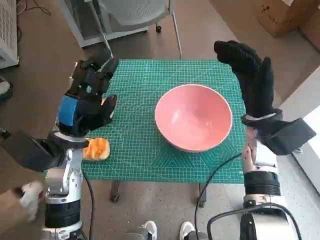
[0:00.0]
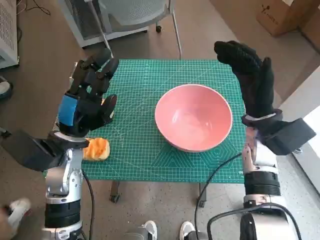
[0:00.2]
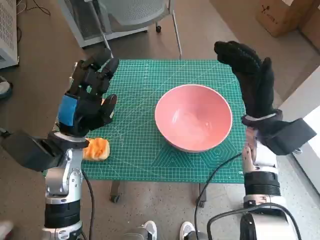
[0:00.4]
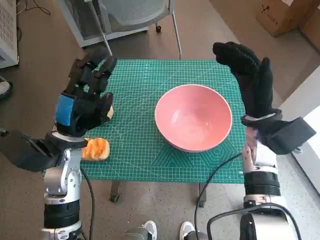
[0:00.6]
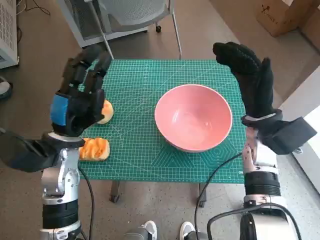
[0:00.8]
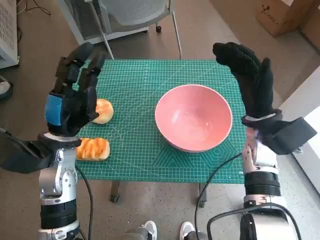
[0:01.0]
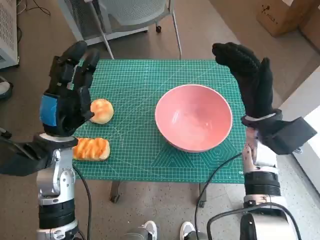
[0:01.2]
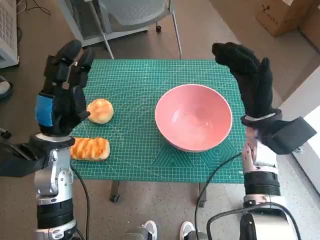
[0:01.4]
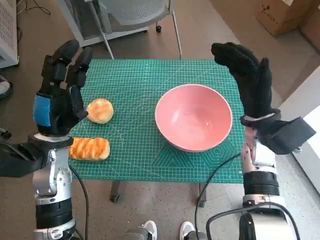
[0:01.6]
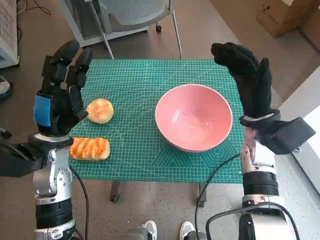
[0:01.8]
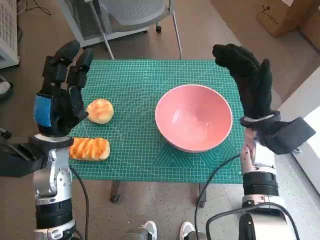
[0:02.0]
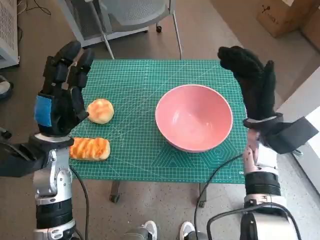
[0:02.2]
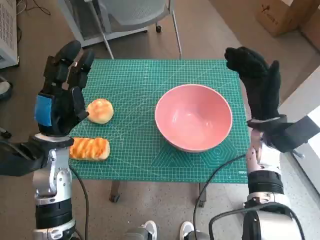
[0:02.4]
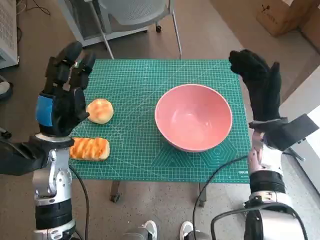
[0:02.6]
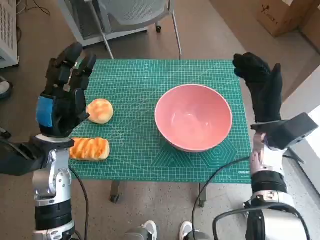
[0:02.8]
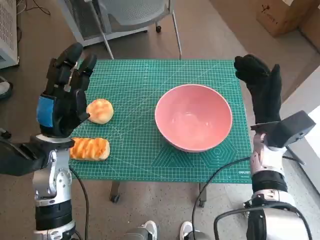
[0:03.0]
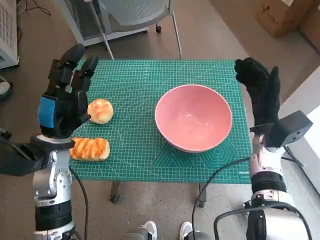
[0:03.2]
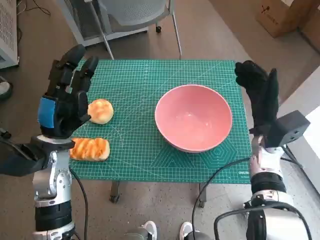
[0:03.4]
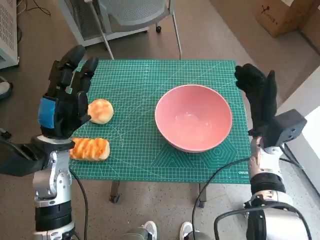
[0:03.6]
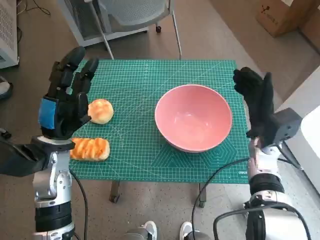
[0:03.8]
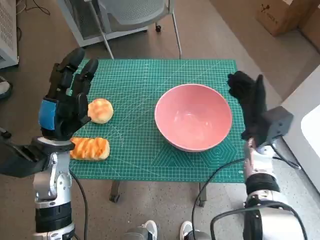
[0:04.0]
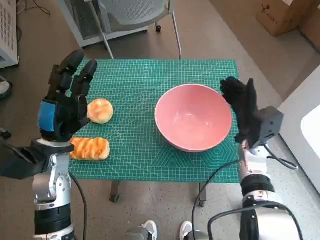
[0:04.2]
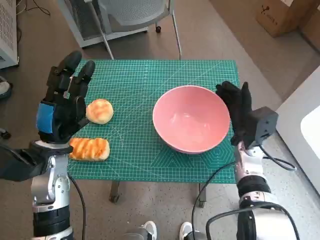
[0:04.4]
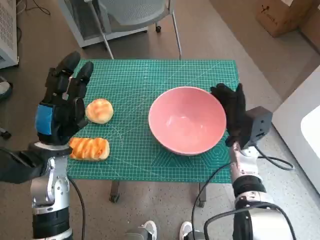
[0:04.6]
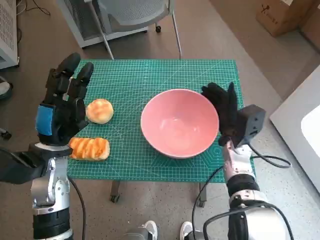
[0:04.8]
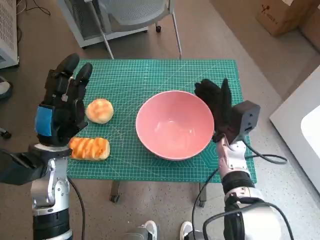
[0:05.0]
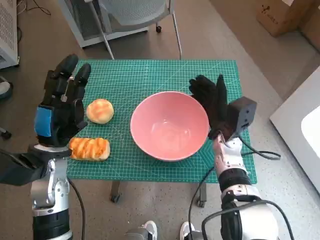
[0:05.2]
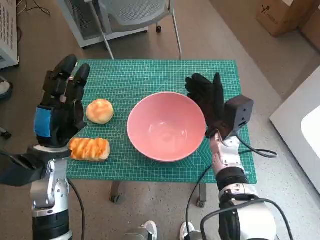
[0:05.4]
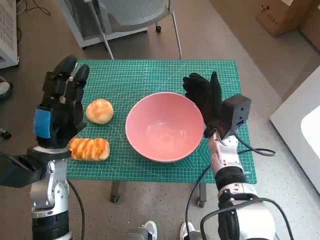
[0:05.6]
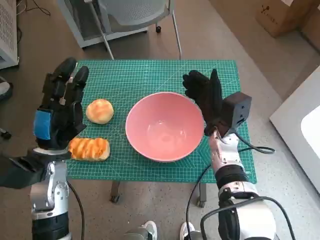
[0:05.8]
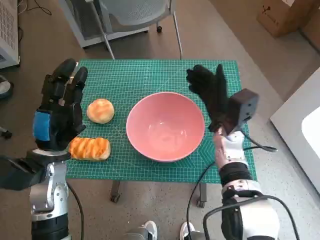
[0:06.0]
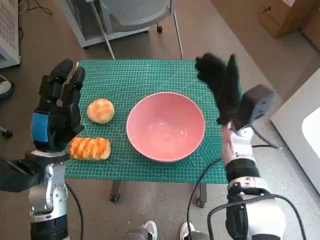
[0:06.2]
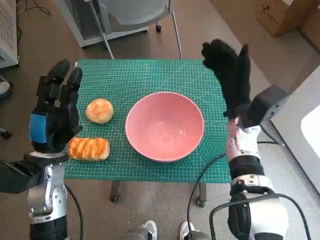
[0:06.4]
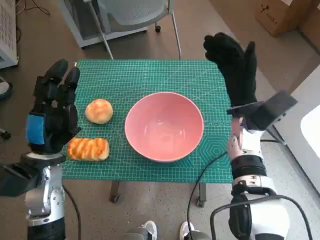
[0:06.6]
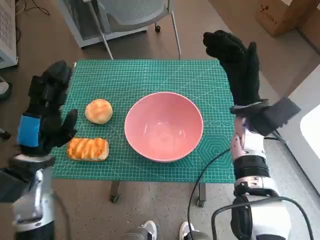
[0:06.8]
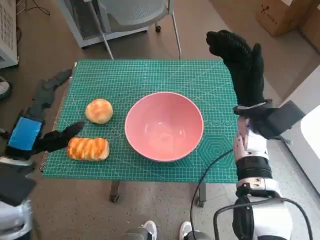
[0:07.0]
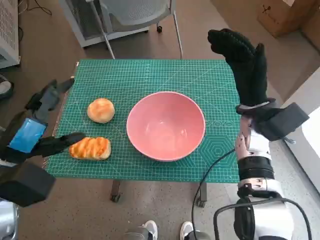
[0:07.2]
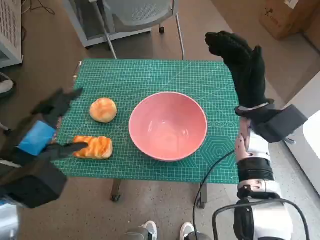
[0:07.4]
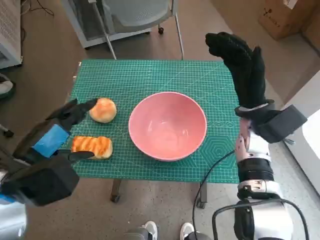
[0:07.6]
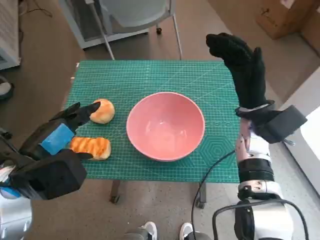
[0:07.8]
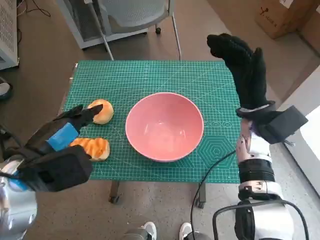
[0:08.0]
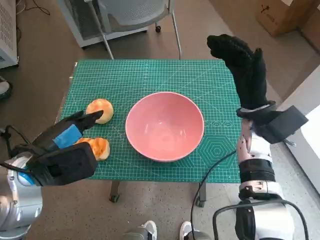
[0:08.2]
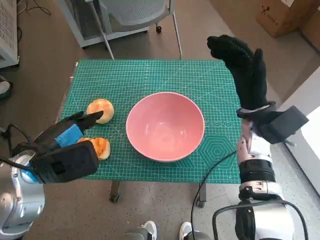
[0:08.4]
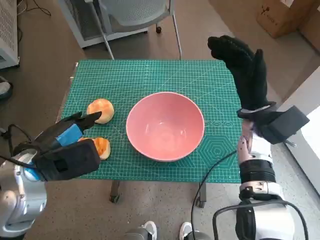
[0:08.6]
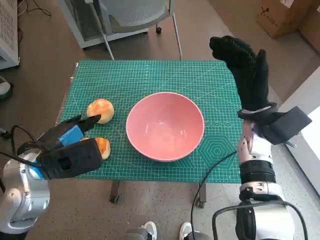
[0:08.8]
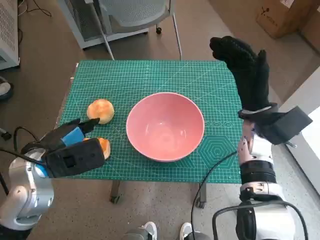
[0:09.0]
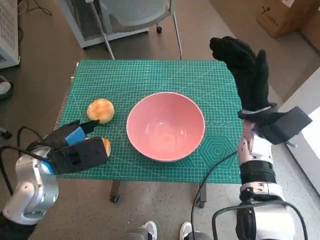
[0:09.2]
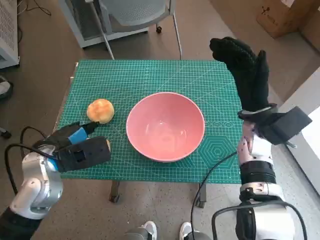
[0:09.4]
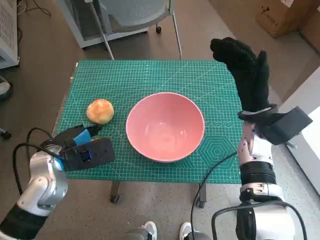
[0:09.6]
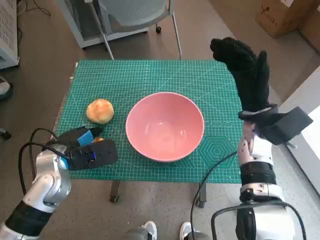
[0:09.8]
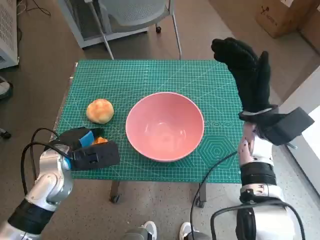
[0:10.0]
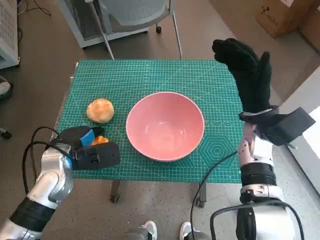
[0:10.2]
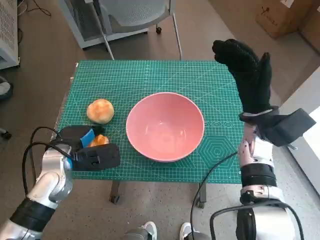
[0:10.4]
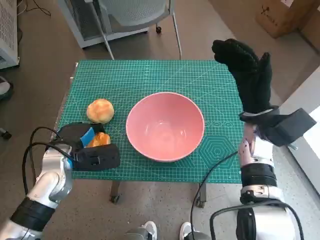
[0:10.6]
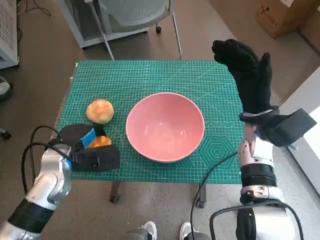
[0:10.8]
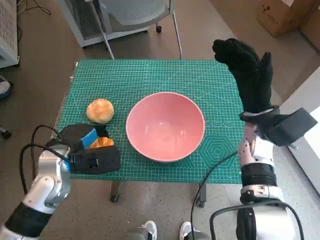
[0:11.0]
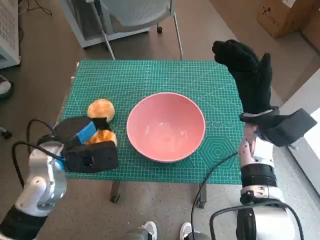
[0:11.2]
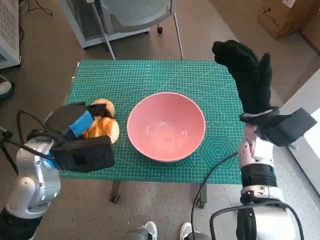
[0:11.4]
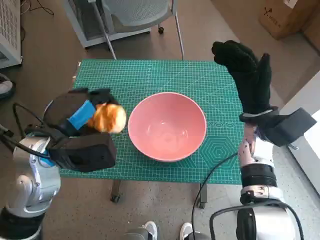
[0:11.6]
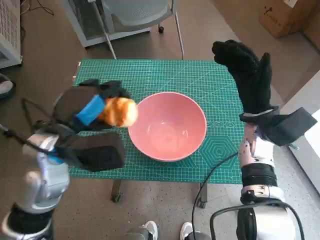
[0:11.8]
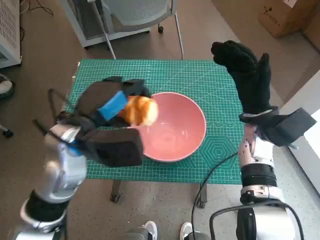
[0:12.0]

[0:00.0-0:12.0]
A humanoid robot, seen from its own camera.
Step, 0:00.0 to 0:06.0: Move the pink bowl to the center of table with right hand.
Step, 0:06.2 to 0:10.0: Grasp the long bread with left hand.
0:01.6 to 0:03.0: The hands stay close to where they were, moving slightly.
0:03.0 to 0:04.4: The right hand shifts by approximately 5 cm.
0:04.4 to 0:06.0: The right hand is displaced to the left by some 5 cm.
0:06.0 to 0:07.6: The right hand is displaced upward by some 5 cm. The left hand moves upward and backward, roughly 10 cm.
0:07.6 to 0:09.0: The left hand changes place by about 5 cm.
0:09.0 to 0:10.4: The left hand heads downward, covering some 5 cm.
0:10.4 to 0:12.0: The left hand heads upward and to the right, covering about 10 cm.

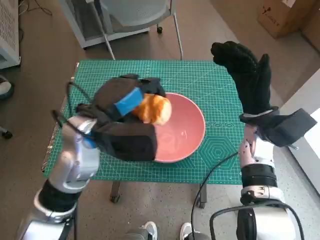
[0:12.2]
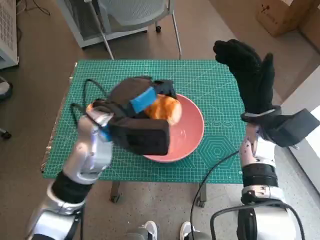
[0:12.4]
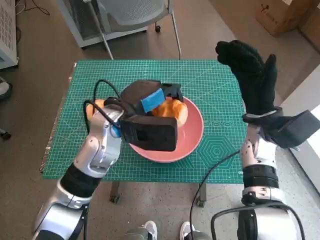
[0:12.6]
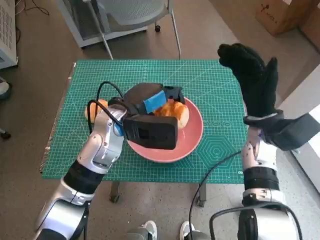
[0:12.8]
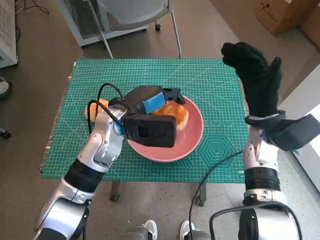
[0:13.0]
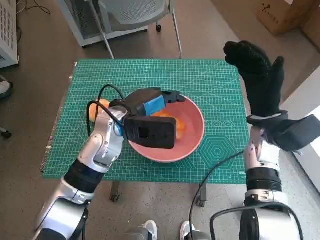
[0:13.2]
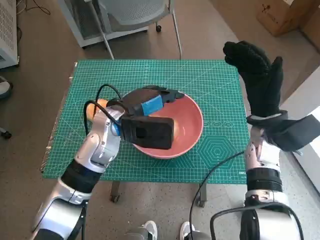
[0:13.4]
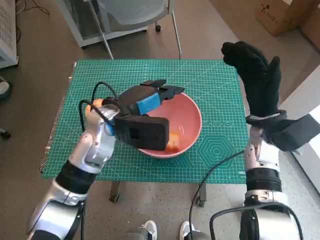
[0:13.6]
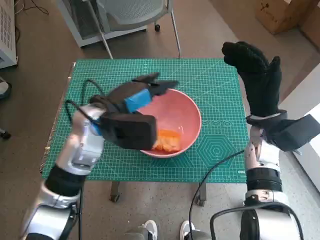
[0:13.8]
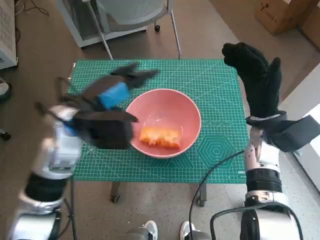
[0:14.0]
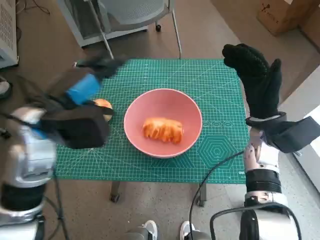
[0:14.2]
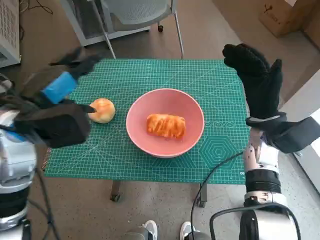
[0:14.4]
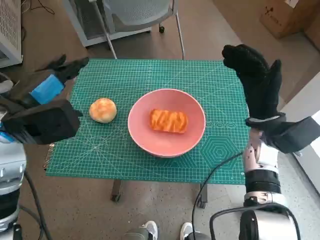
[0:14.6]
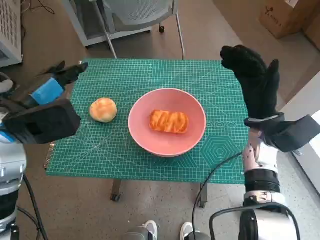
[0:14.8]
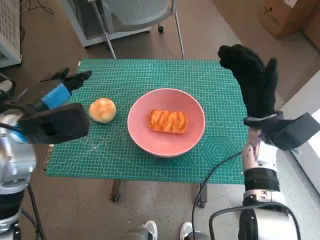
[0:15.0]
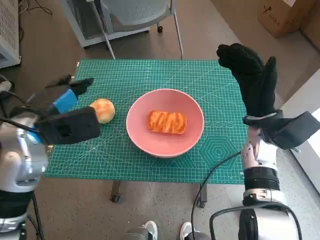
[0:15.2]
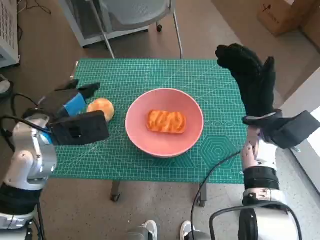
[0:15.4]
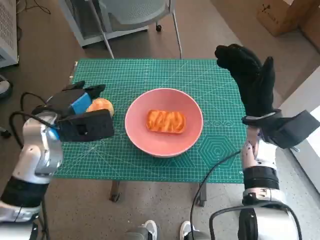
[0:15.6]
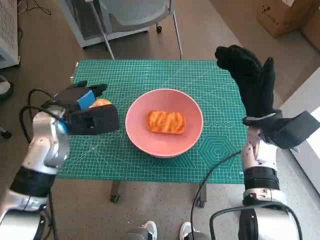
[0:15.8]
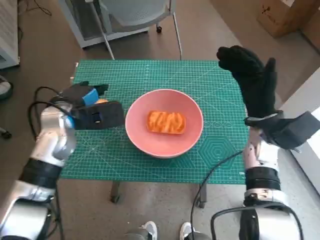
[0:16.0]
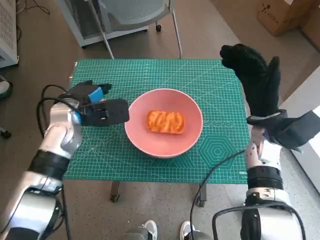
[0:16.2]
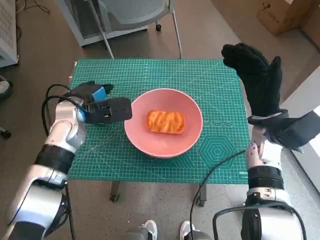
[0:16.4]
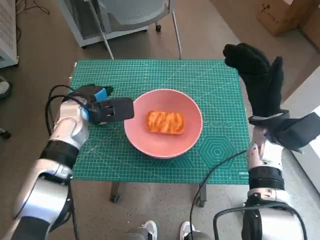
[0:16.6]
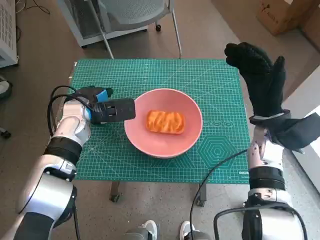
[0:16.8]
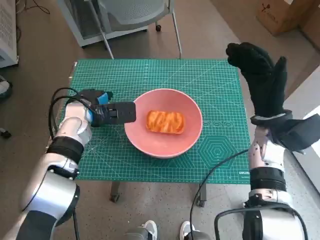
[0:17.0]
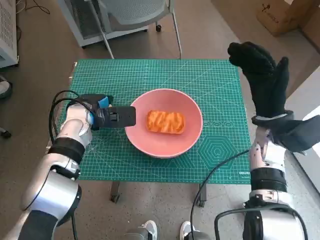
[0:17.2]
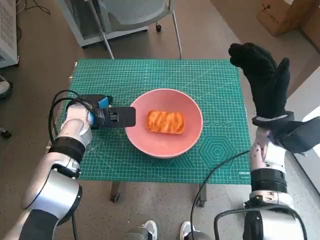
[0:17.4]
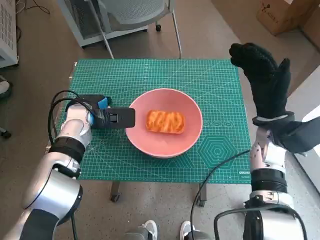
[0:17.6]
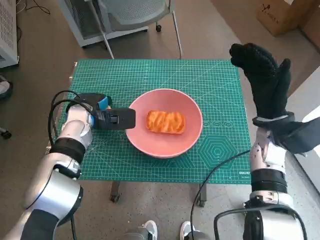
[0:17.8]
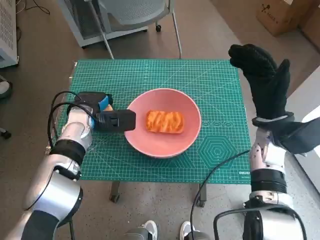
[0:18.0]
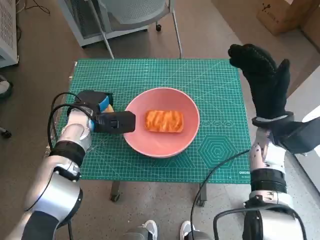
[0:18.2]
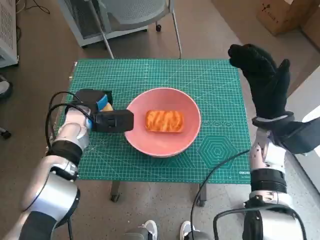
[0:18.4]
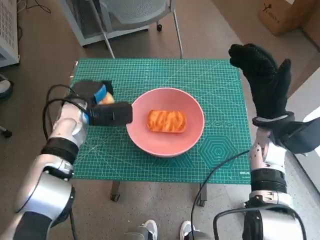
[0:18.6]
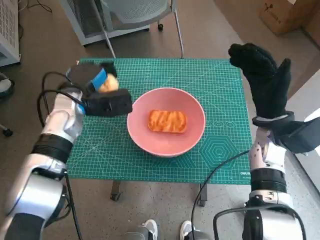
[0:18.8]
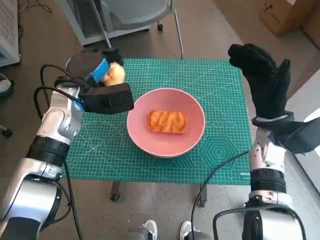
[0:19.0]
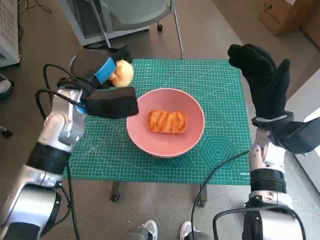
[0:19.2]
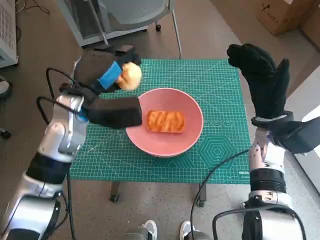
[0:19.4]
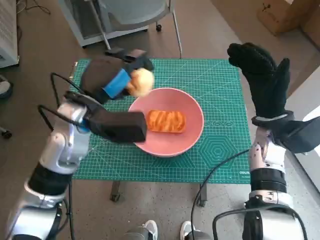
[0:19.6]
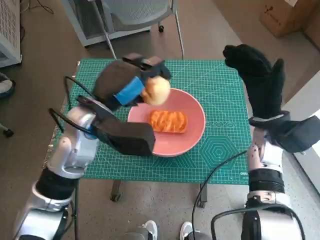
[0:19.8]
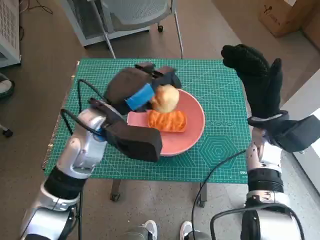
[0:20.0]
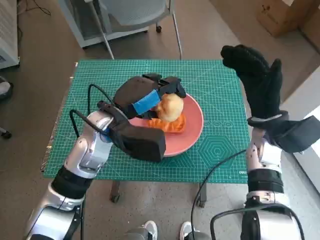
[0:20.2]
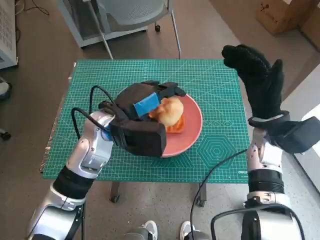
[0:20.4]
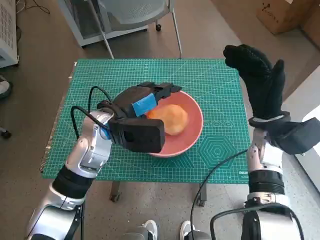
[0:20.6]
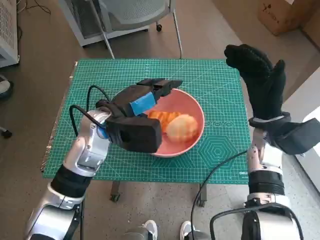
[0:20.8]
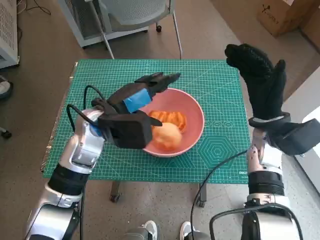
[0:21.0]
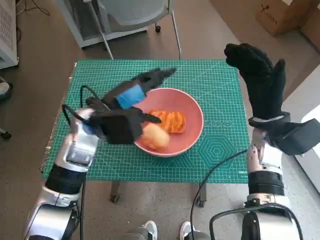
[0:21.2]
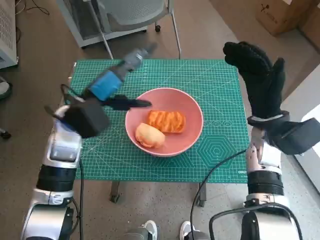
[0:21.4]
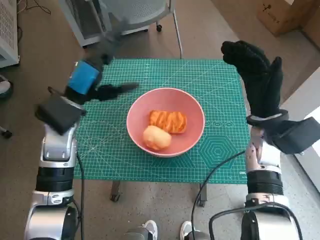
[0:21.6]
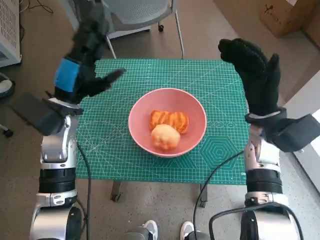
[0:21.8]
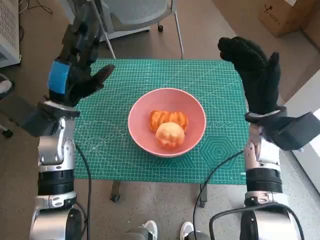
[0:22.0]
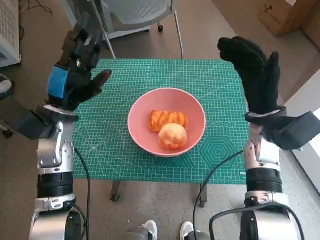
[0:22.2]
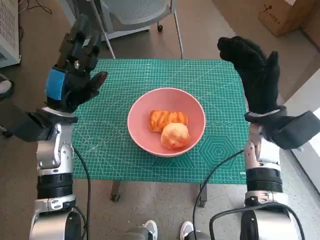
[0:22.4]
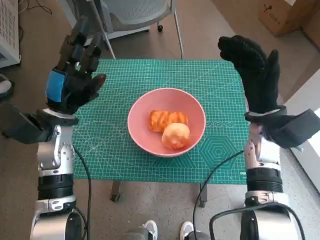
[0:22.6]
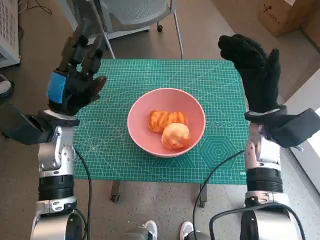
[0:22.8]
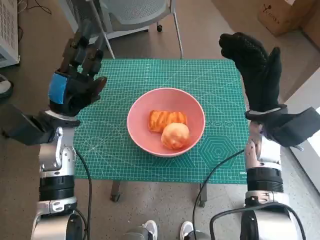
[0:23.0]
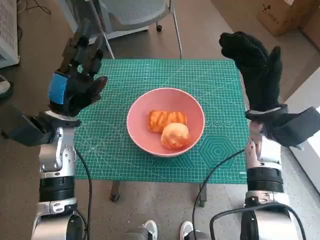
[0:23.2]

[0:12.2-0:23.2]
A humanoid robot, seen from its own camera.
Step, 0:13.6 to 0:17.6: Grasp the round bread with left hand.
Step, 0:17.8 to 0:20.8: Place the round bread in pink bowl with left hand.
0:13.8 to 0:15.4: The left hand heads to the left, covering some 10 cm.
0:15.4 to 0:17.0: The left hand goes about 10 cm forward and downward.
0:17.0 to 0:18.4: The hands make only small movements.
0:18.4 to 0:20.0: The left hand moves upward, to the right and backward, about 15 cm.
0:20.0 to 0:21.6: The left hand goes roughly 5 cm to the left.
